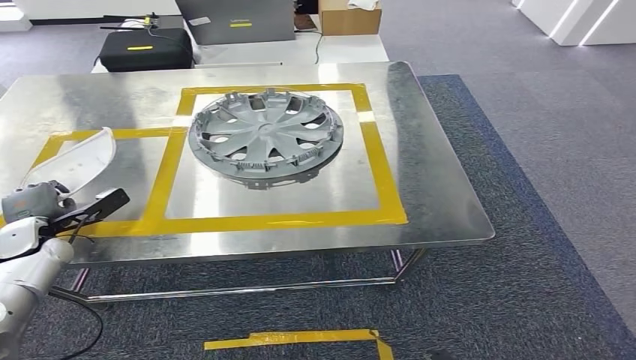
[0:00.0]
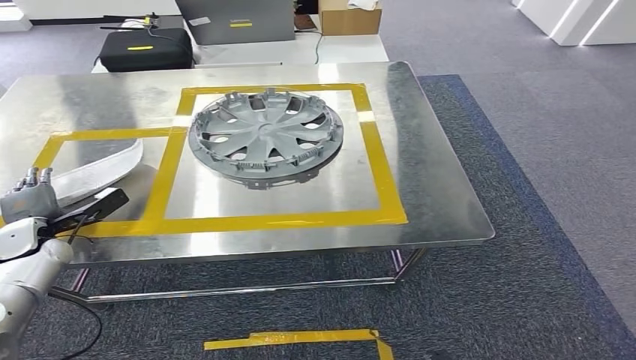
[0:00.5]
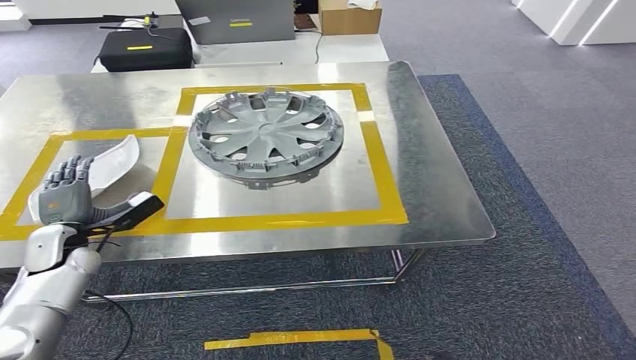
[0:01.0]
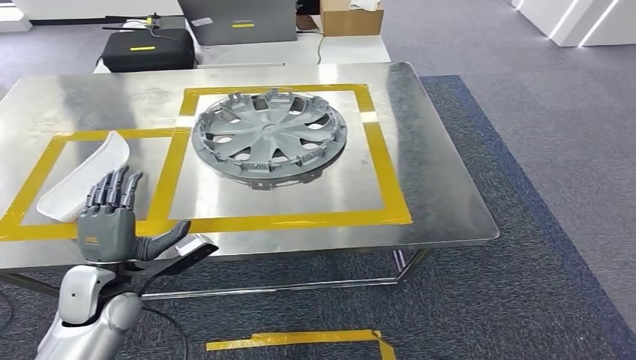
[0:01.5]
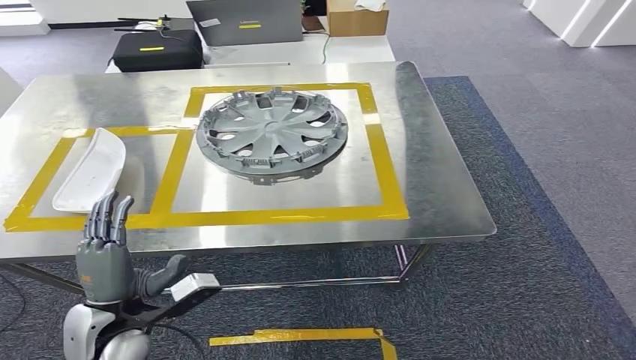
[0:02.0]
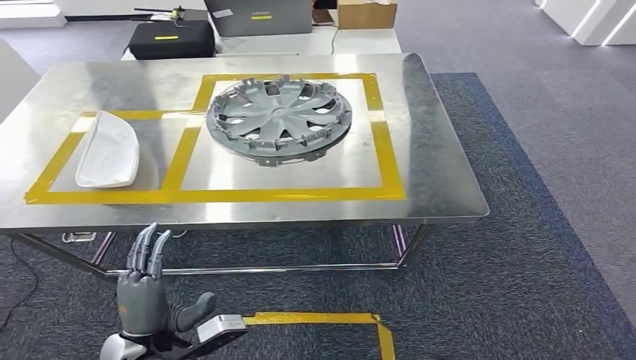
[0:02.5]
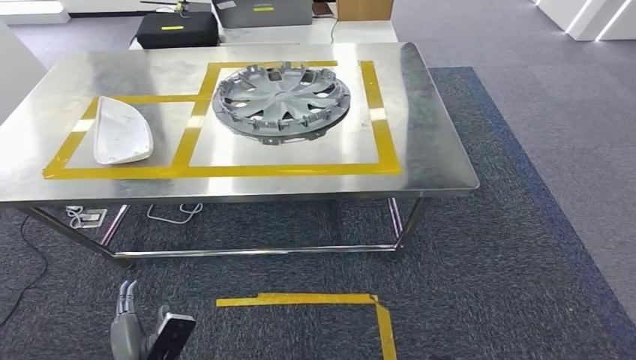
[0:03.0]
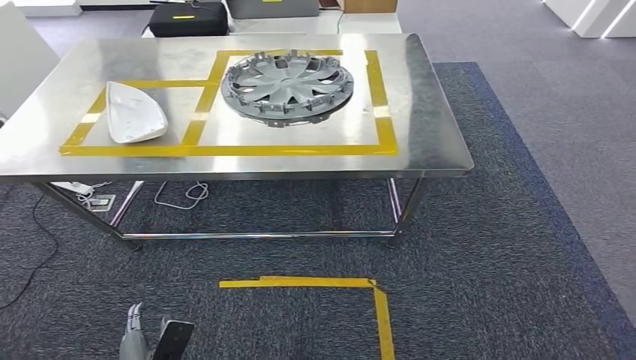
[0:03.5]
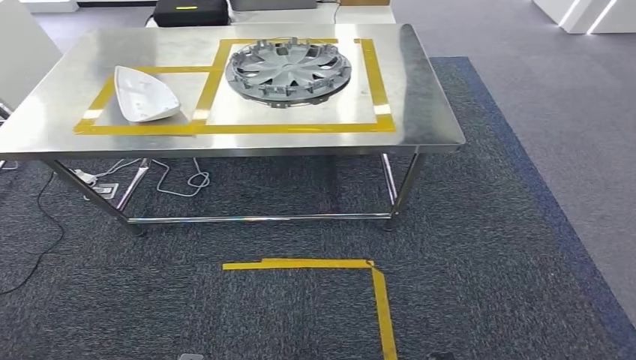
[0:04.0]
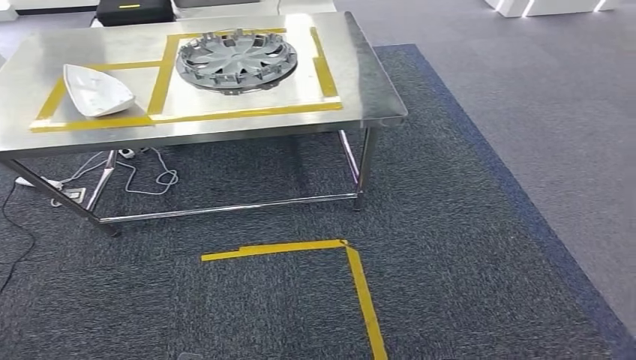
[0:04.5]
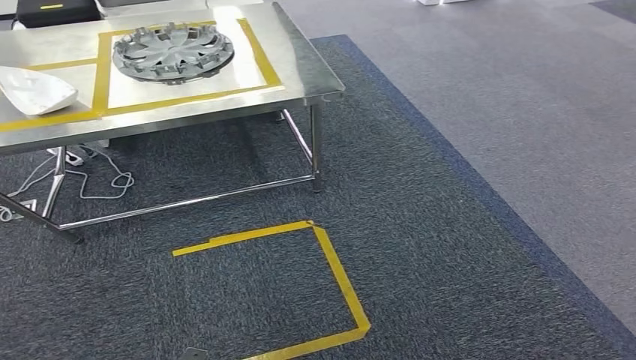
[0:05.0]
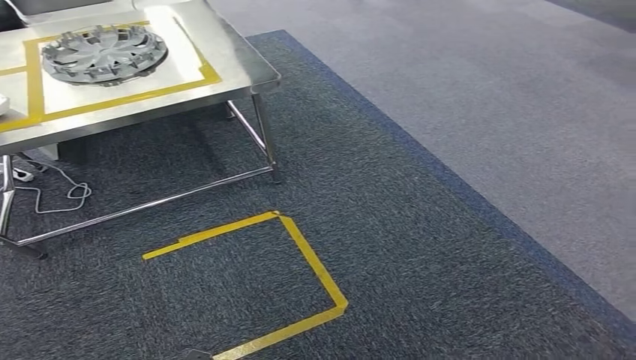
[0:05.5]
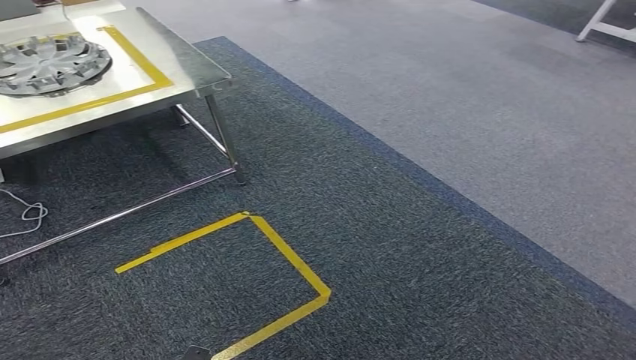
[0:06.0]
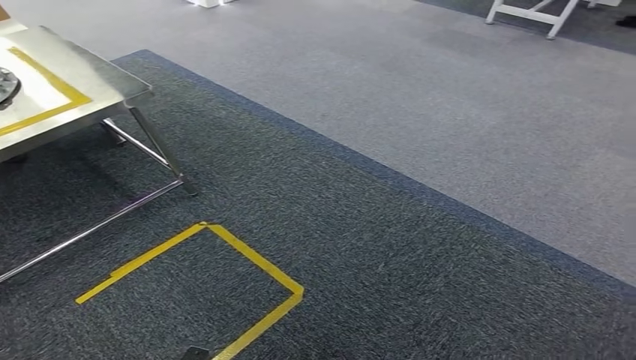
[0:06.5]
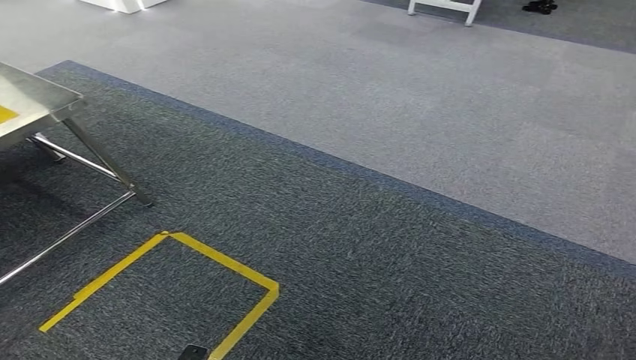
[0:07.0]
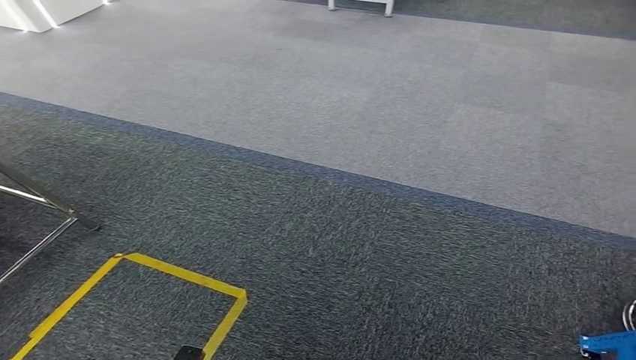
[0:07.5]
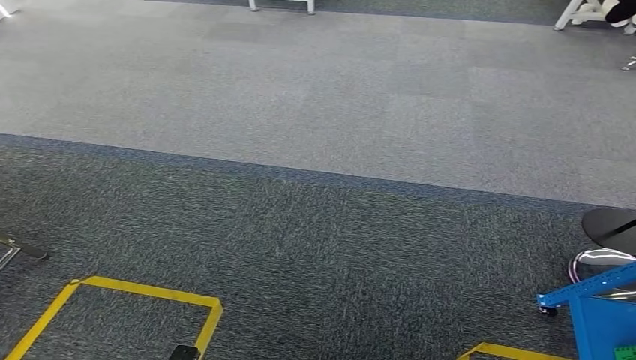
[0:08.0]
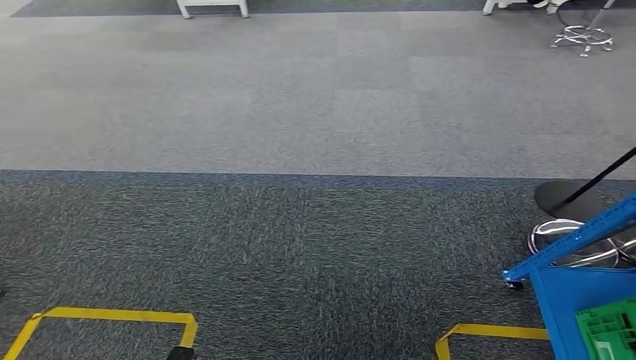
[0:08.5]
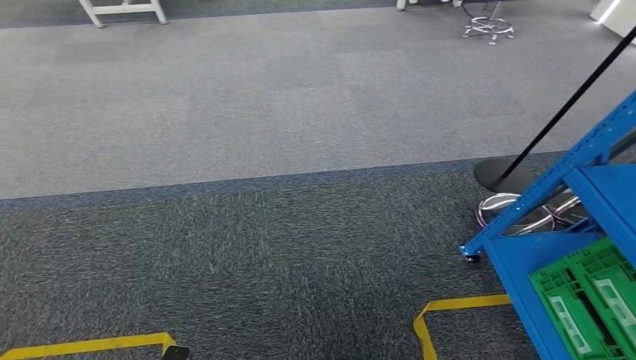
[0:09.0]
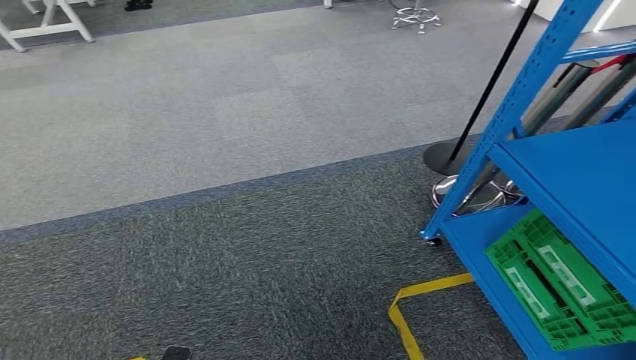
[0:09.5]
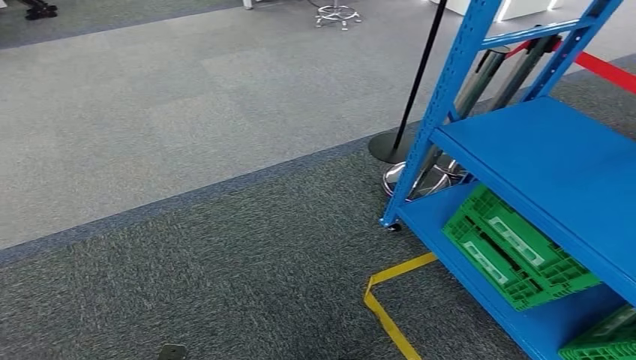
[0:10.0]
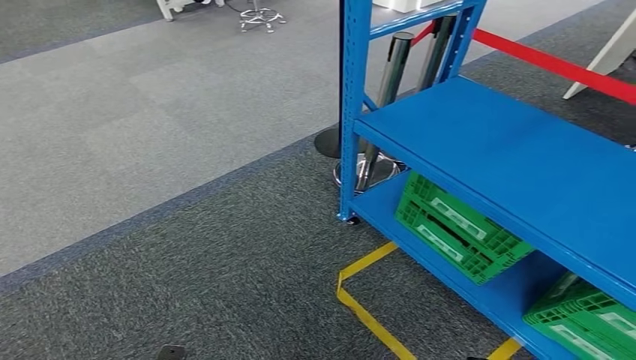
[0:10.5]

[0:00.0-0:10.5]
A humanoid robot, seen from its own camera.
Step, 0:00.0 to 0:04.5: Insert the small component into the corresponding slot on the workbench.

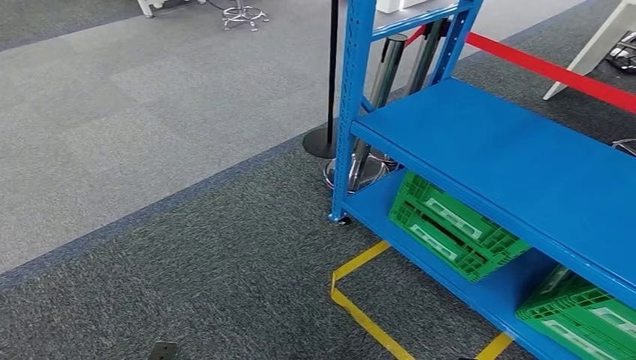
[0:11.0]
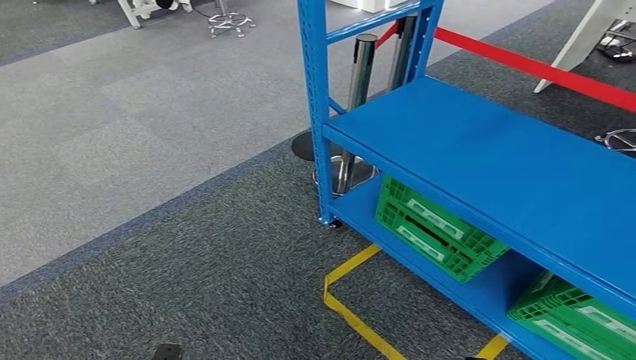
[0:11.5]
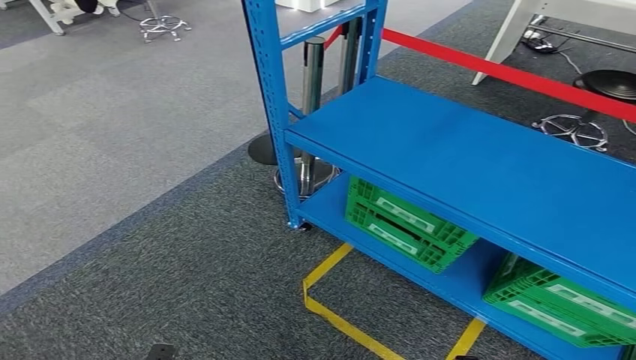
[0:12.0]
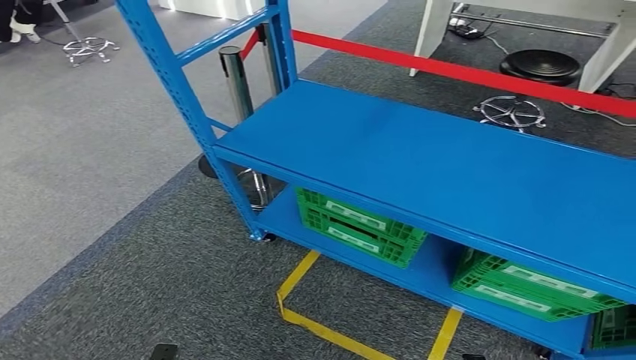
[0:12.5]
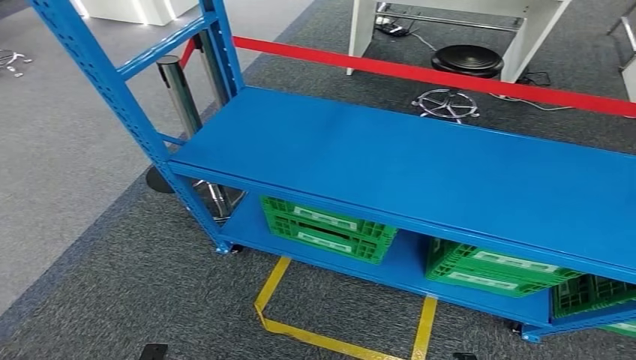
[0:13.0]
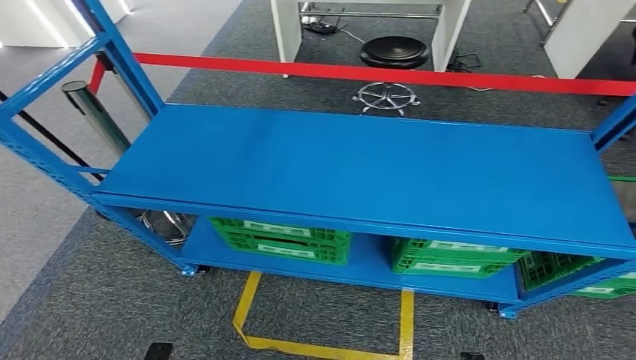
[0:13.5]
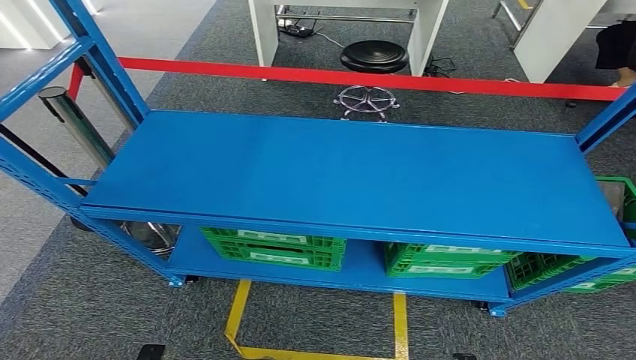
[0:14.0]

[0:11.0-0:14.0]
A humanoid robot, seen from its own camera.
Step, 0:11.0 to 0:14.0: Return to the initial position at the workbench.
